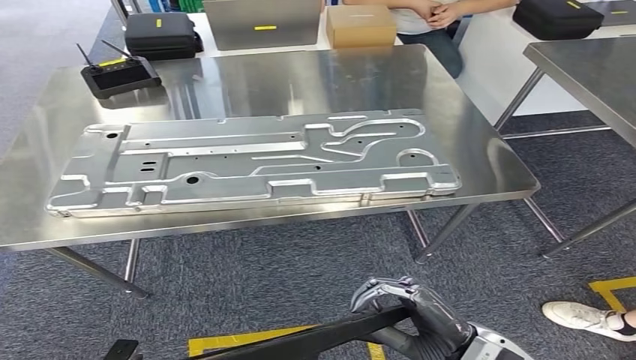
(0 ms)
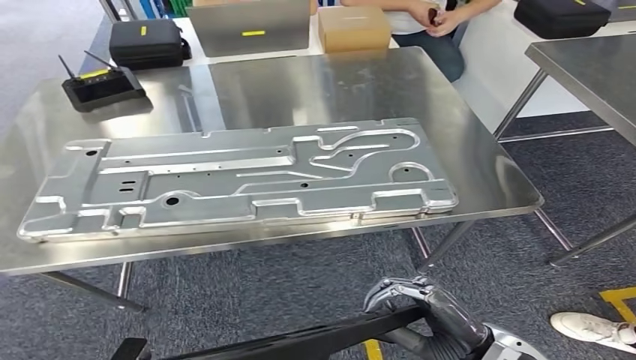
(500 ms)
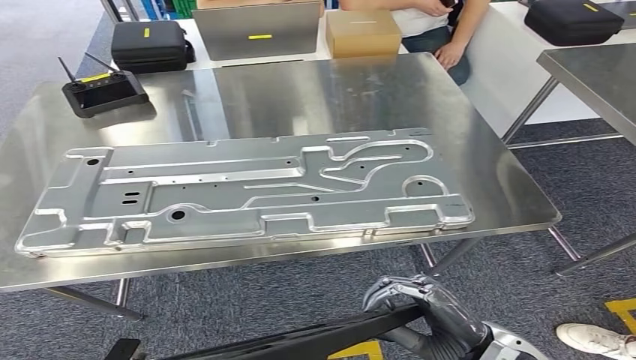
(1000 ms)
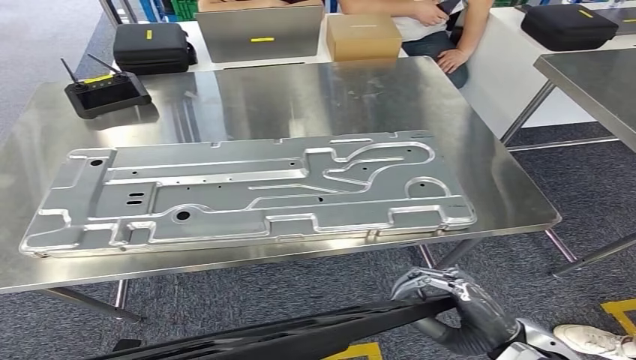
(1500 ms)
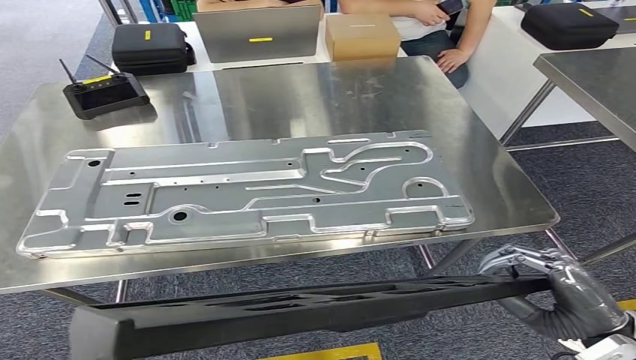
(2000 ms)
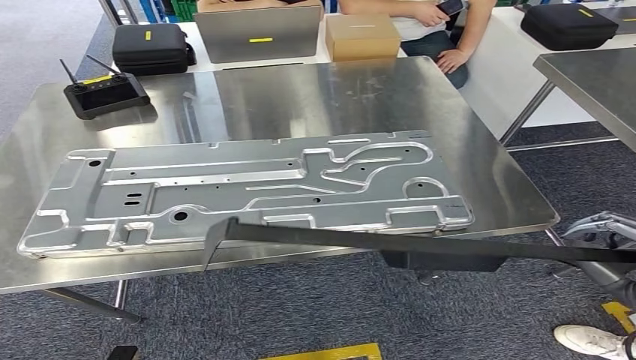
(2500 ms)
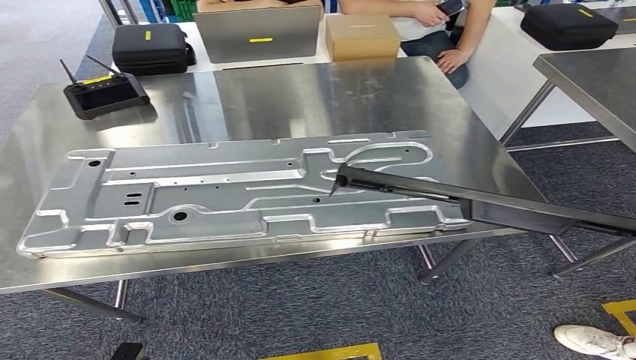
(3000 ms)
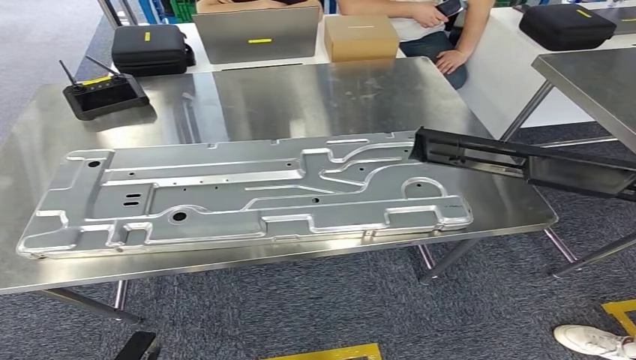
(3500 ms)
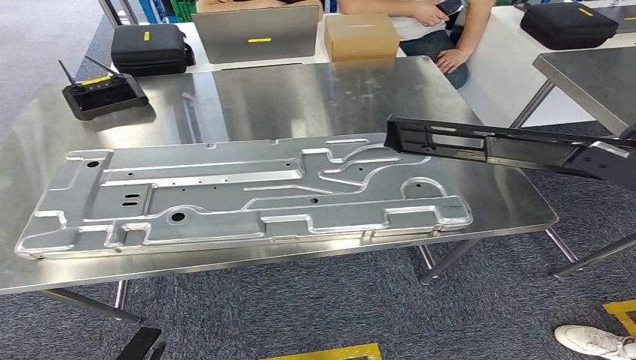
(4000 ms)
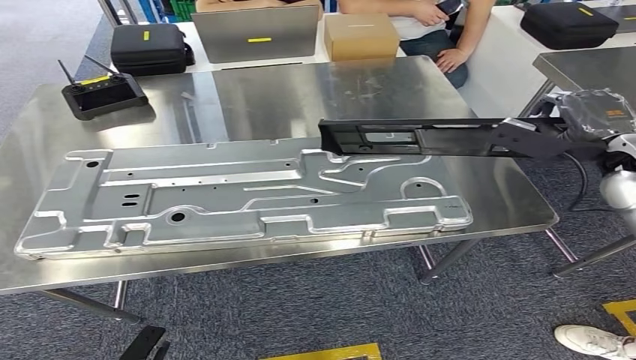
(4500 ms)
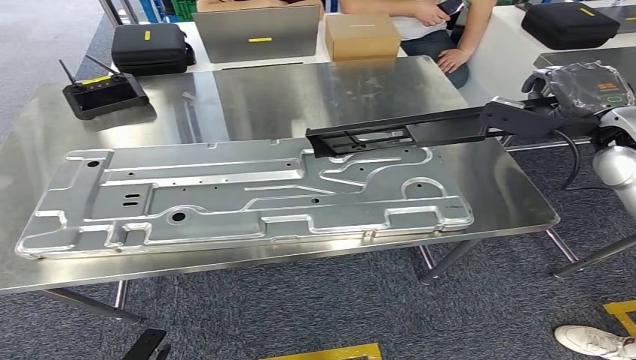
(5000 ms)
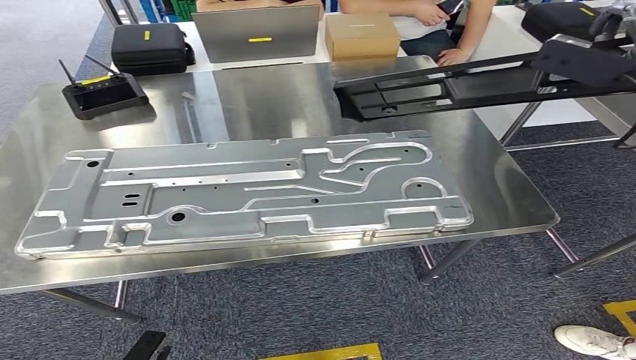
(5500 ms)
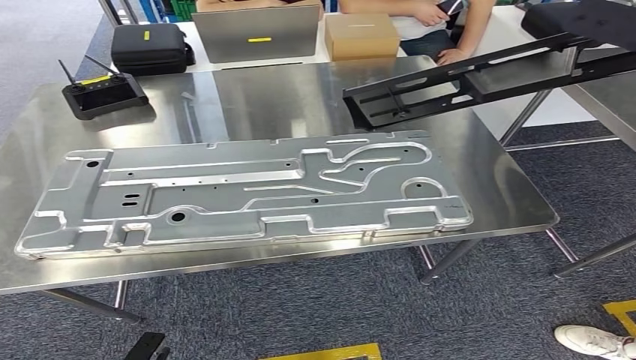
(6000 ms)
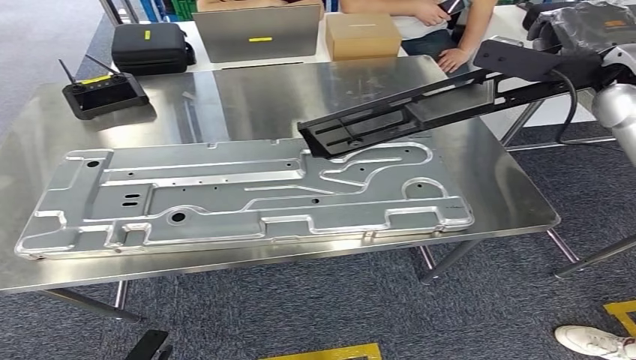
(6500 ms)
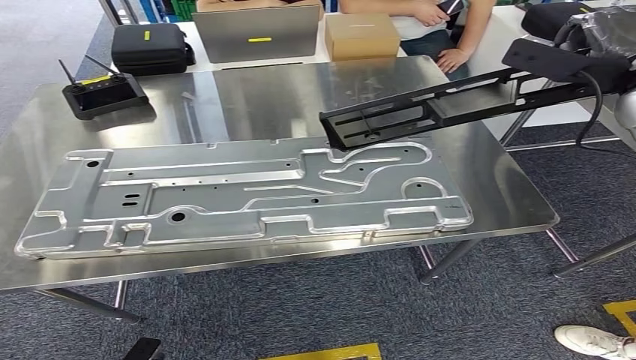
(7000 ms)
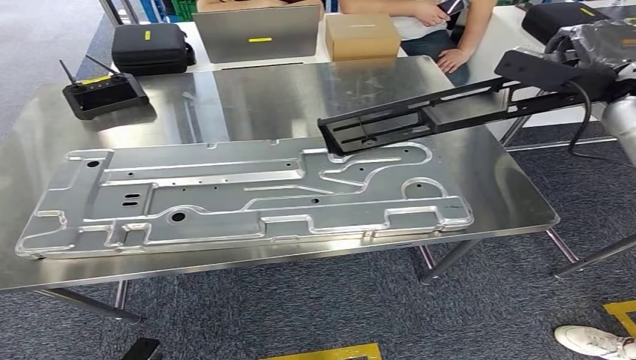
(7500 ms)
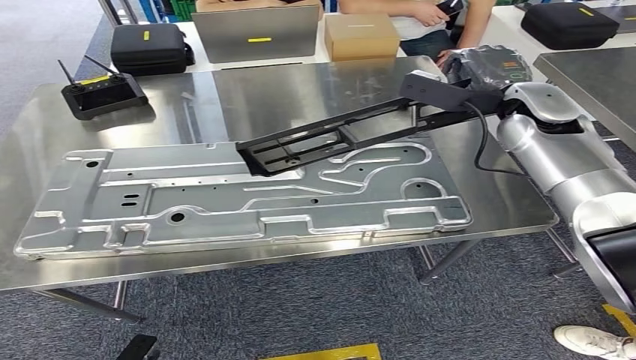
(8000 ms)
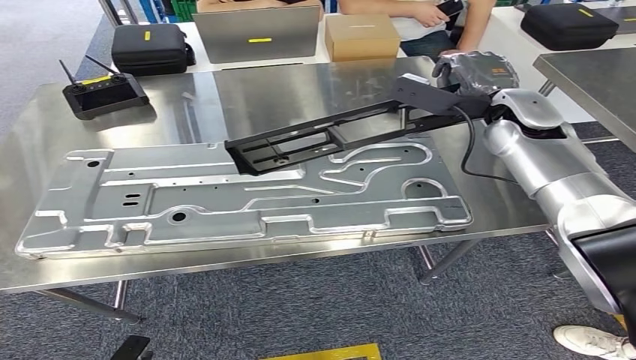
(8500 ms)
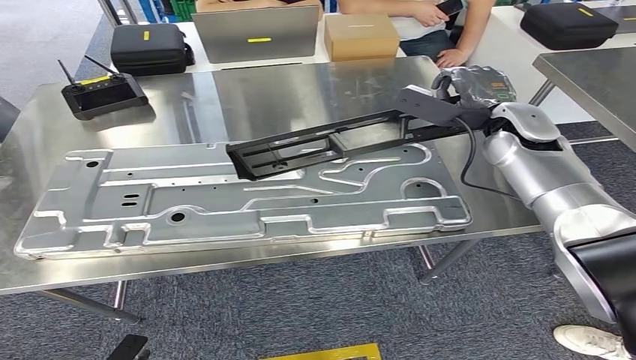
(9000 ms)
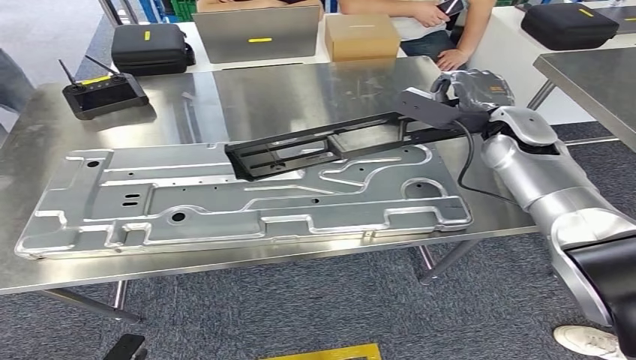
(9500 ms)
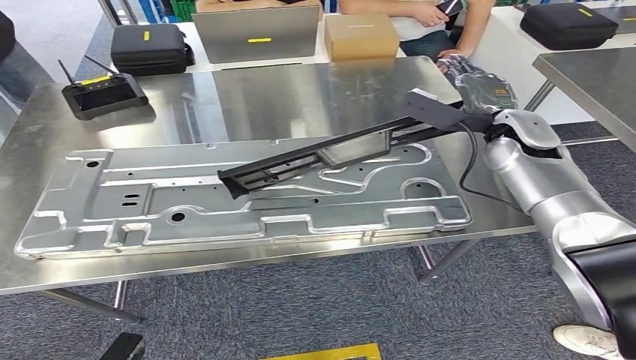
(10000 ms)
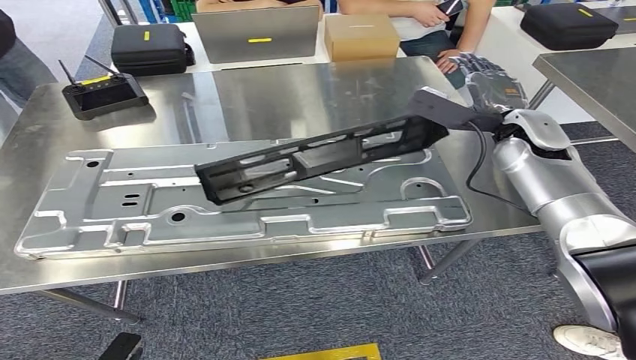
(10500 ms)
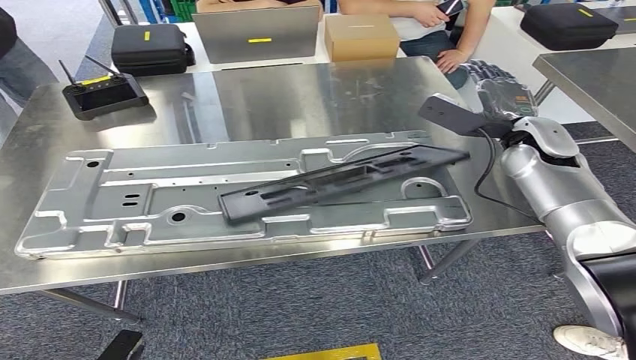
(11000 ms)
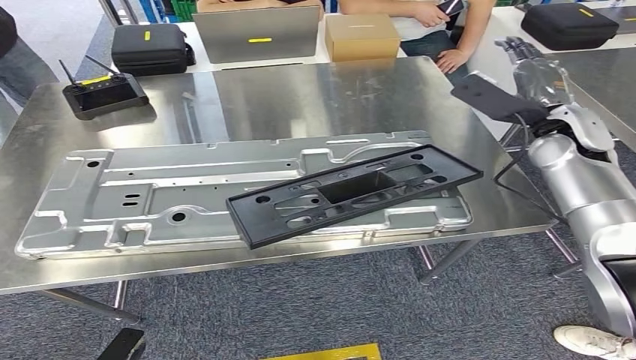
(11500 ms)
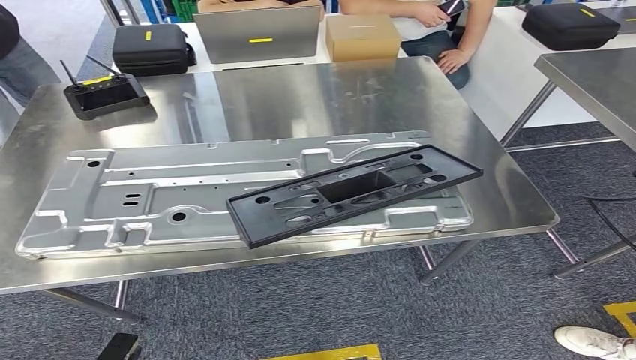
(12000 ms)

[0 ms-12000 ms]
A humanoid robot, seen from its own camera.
2000 ms to 4000 ms: The right hand moves forward, to the right and upward, approximately 25 cm.
4000 ms to 6000 ms: The right hand heads upward and forward, covering approximately 20 cm.
6000 ms to 8000 ms: The right hand moves downward, to the left and forward, some 20 cm.
10000 ms to 12000 ms: The right hand heads backward and to the right, covering about 15 cm.

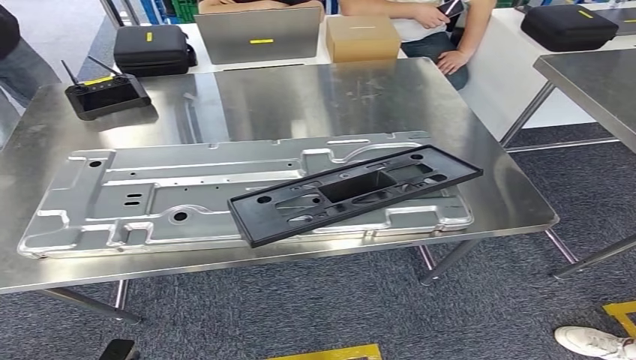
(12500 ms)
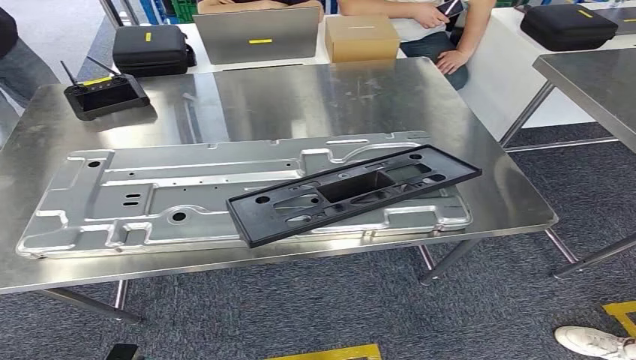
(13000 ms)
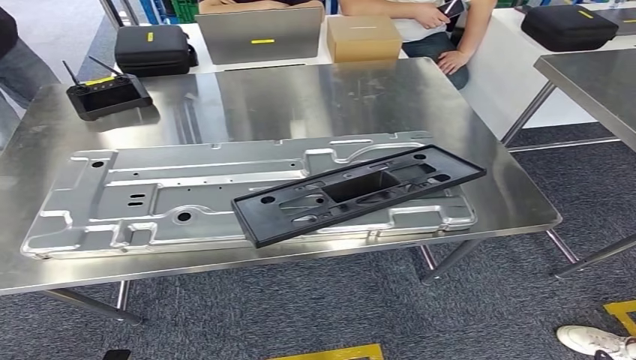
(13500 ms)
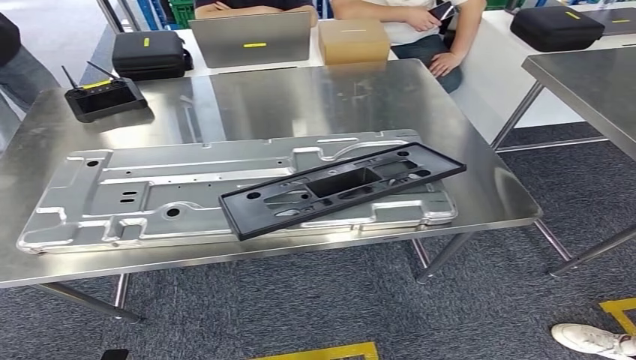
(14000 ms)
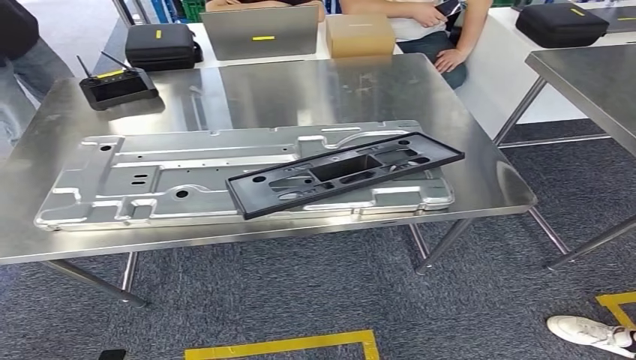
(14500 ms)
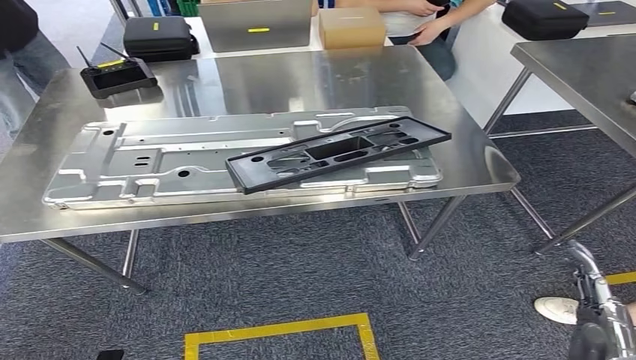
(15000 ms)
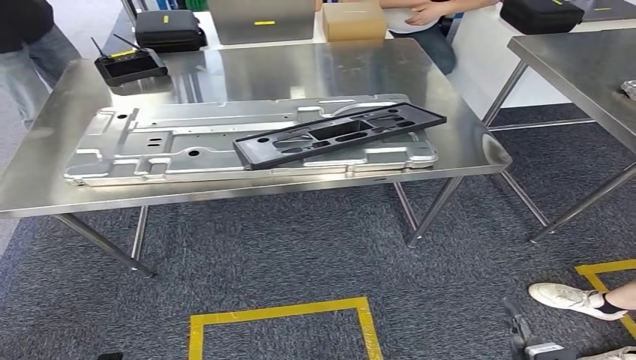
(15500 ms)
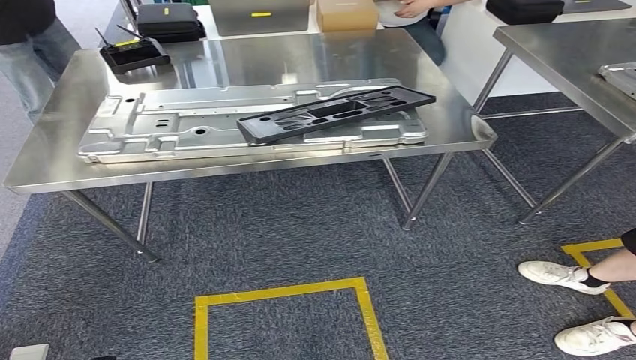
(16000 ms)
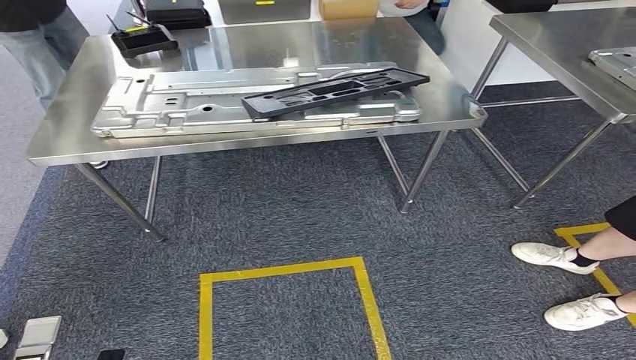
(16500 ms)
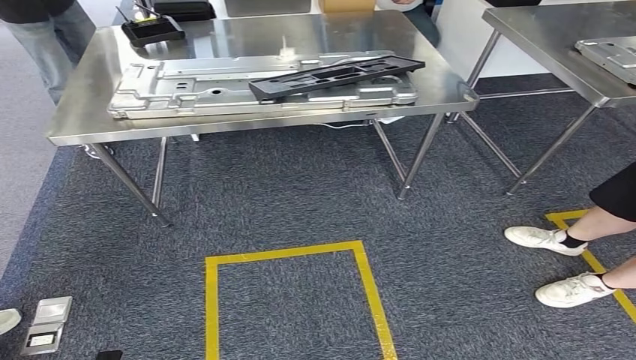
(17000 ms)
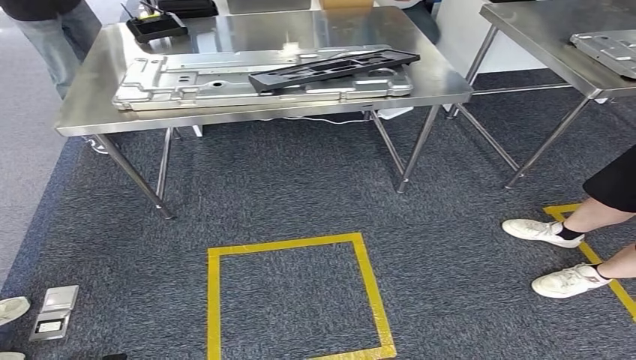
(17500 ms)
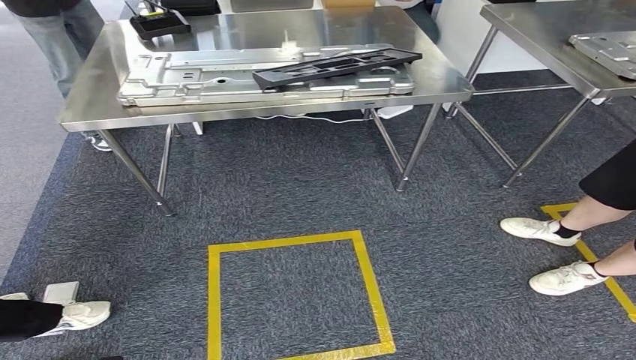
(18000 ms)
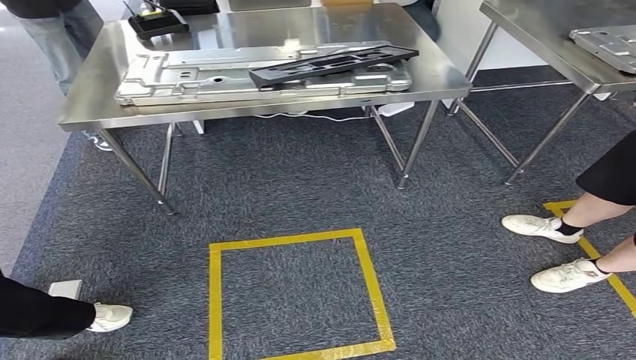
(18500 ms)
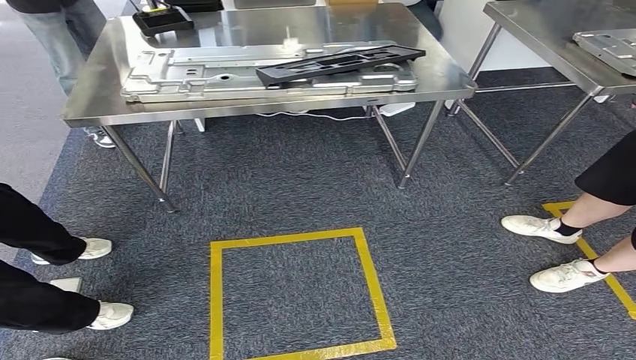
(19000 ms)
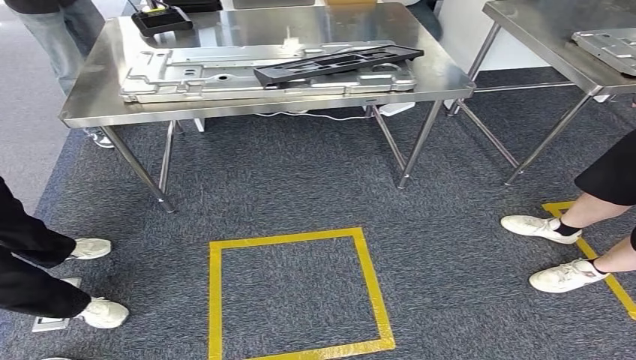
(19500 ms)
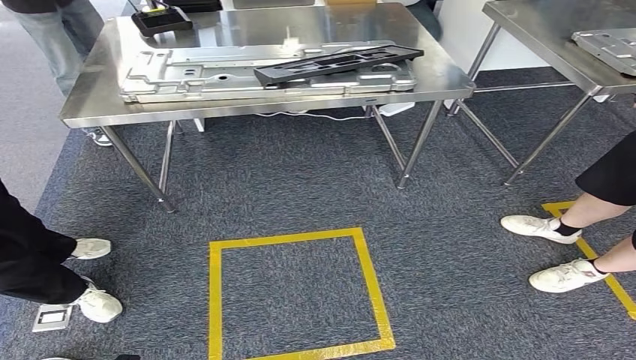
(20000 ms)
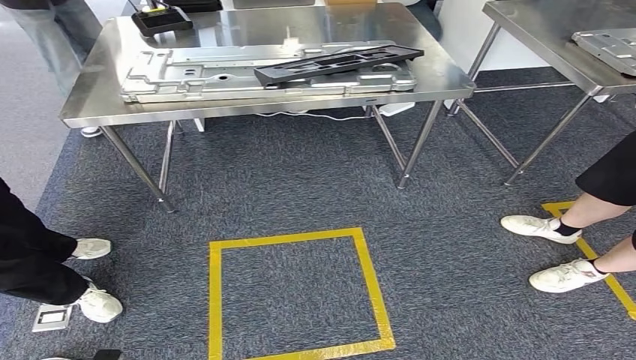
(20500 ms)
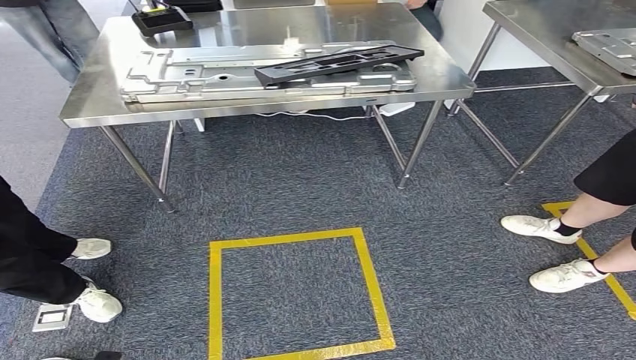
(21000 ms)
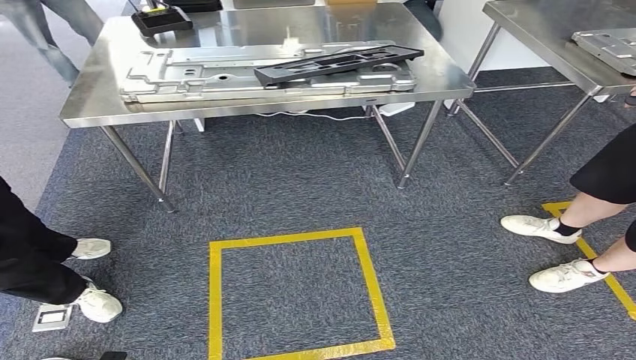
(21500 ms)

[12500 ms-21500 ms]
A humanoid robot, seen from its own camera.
Step, 13500 ms to 21500 ms: Move to the initial position of the shelf.
